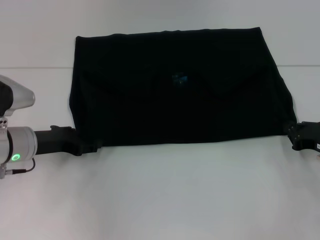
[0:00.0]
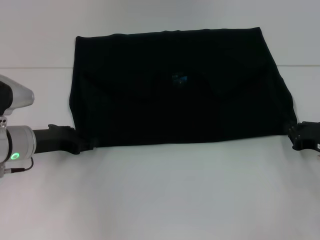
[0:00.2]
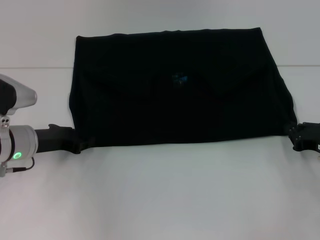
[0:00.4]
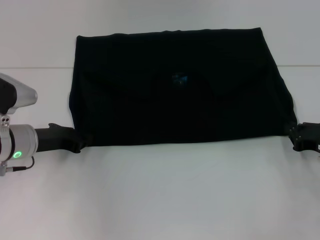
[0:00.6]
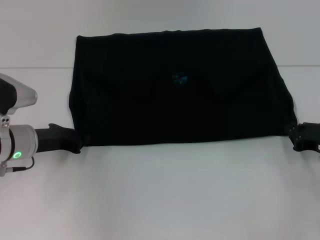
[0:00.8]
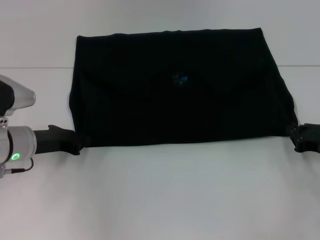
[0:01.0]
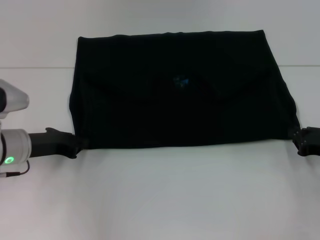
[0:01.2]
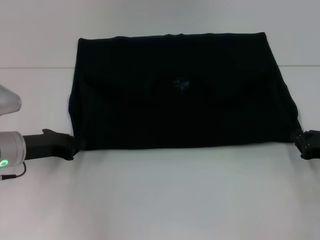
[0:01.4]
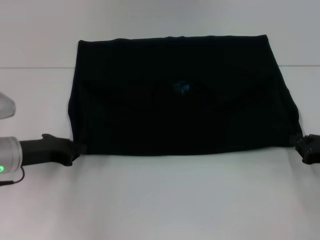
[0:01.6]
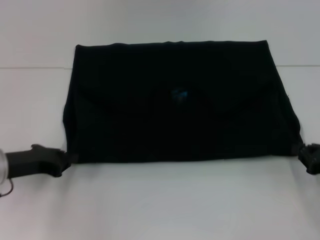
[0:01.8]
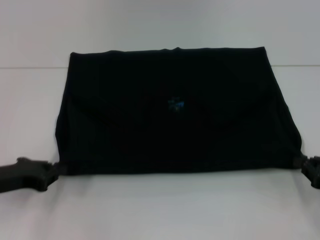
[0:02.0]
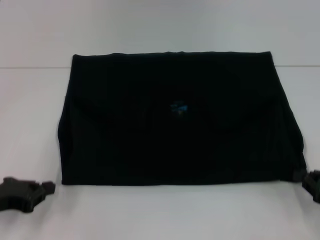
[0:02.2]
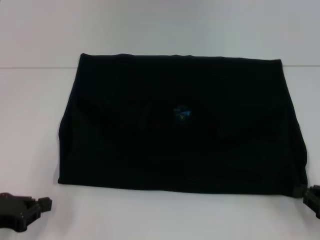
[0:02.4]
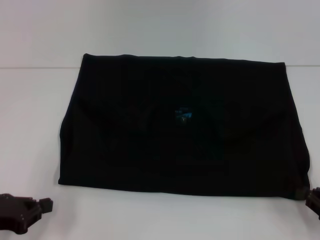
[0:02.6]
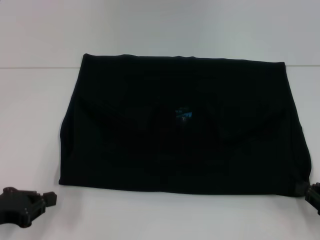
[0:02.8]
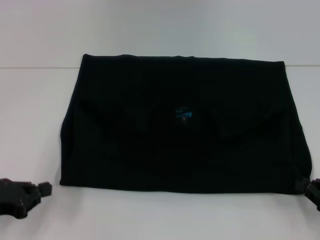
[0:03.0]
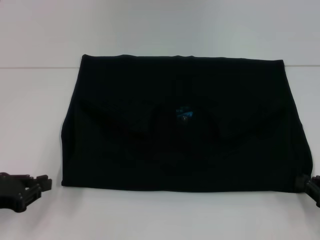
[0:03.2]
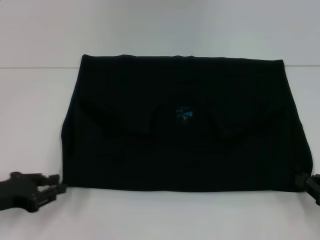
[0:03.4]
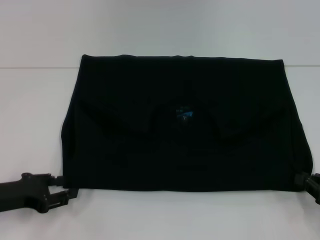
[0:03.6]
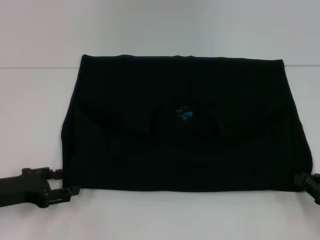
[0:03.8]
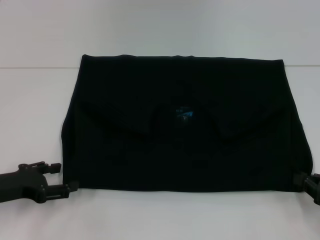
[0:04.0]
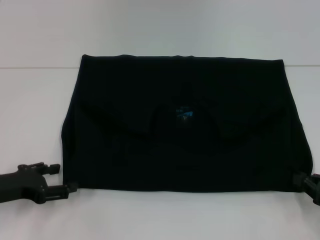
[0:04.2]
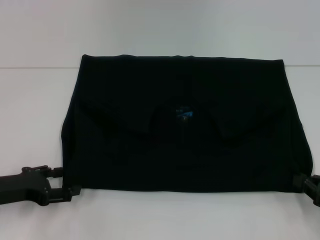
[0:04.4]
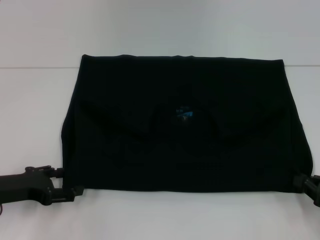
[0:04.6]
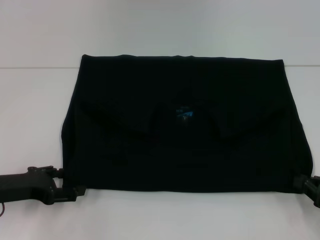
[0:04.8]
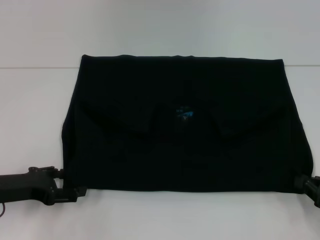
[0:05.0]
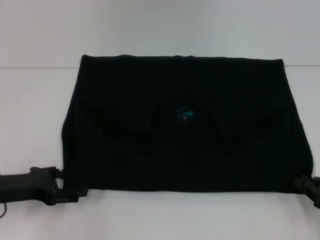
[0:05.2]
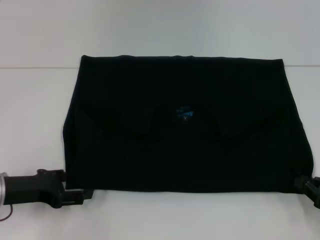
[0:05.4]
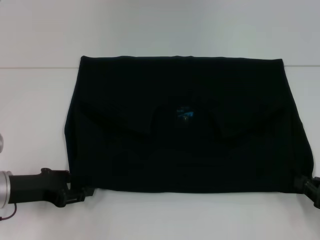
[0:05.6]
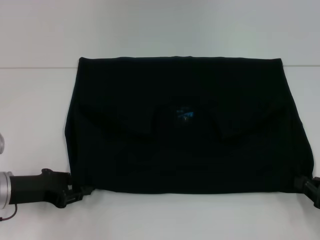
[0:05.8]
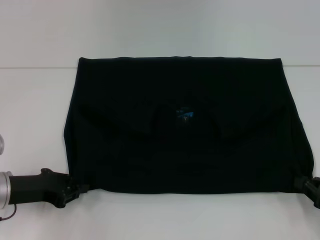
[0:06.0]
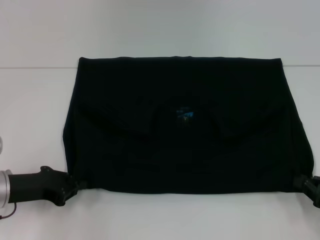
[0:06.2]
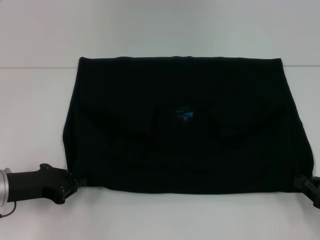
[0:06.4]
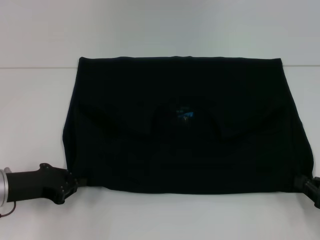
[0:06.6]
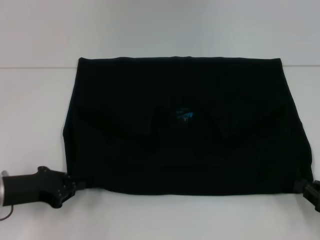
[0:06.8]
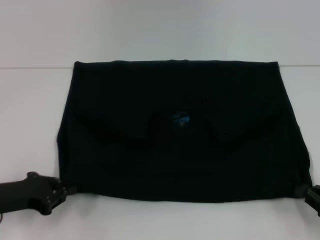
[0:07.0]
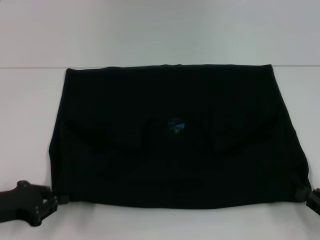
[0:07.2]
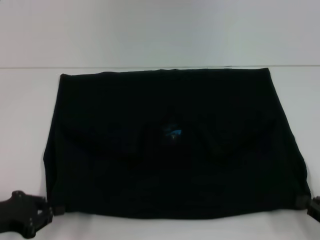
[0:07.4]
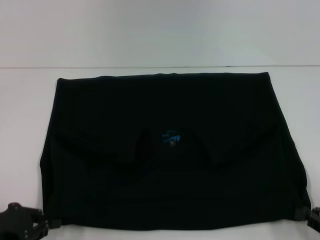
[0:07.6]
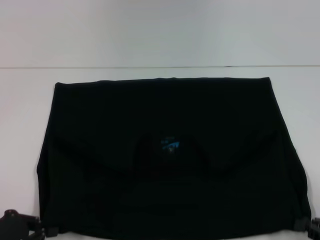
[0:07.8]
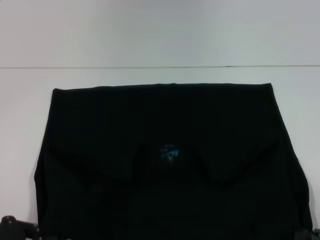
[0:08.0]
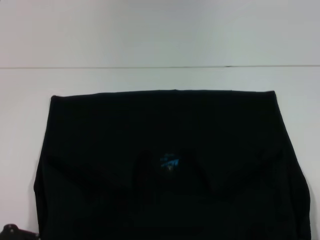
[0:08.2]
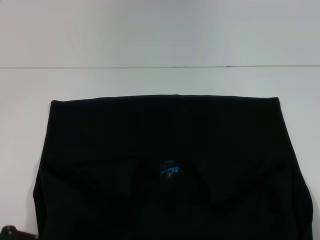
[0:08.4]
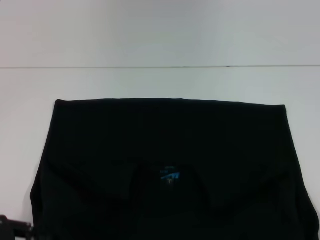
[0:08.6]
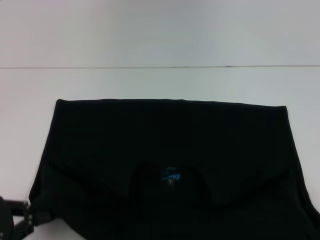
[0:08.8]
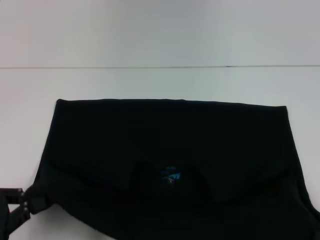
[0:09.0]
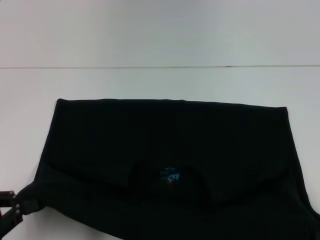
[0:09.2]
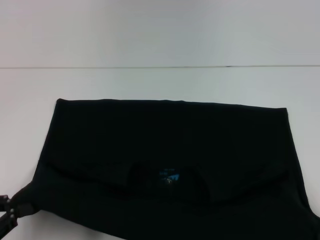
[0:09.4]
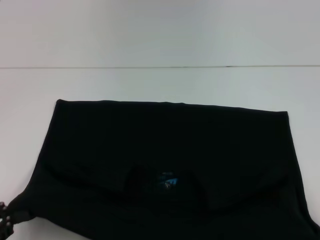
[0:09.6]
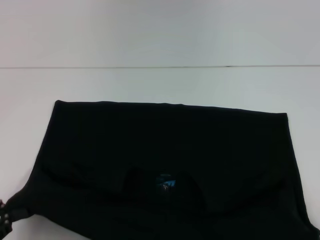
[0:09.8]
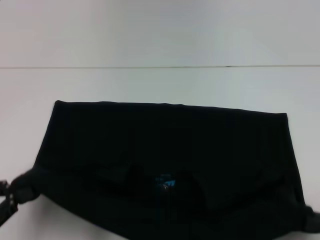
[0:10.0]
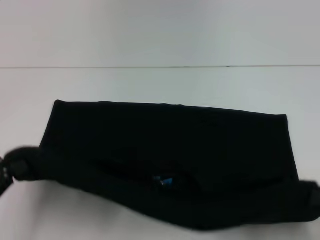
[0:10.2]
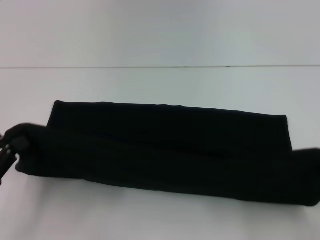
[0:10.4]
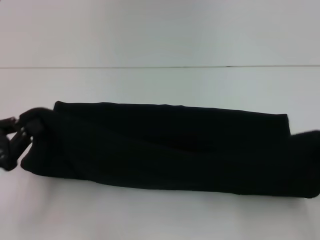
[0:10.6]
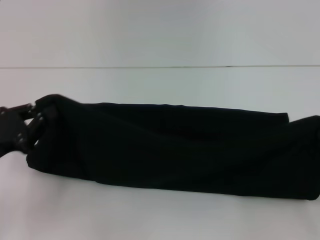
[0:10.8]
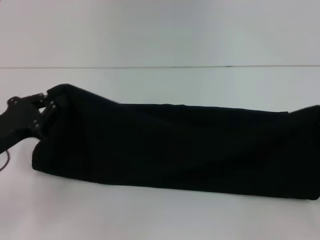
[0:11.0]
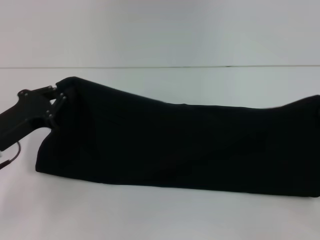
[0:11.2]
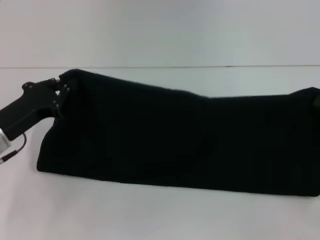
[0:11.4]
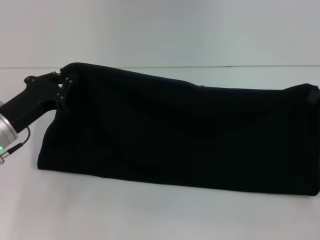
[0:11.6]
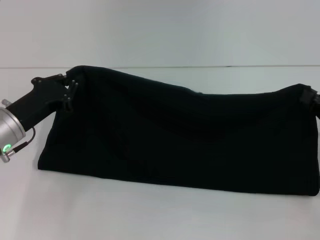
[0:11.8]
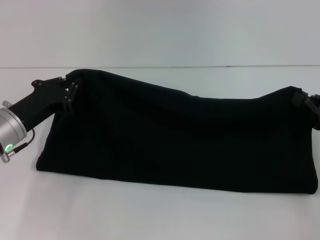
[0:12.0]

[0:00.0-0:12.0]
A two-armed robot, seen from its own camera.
Step, 0:00.0 to 0:04.4: Pull the clothes with your left hand.
Step, 0:00.0 to 0:04.4: Pull the clothes with your right hand.
0:00.0 to 0:01.6: The left gripper closes up.
0:01.6 to 0:03.0: The right gripper is displaced backward by some 5 cm, while the left gripper goes about 10 cm backward and to the left.
0:03.0 to 0:04.4: The left gripper opens its fingers.
0:04.4 to 0:06.0: The left gripper closes up.
0:06.0 to 0:07.6: The left gripper shifts approximately 5 cm backward.
0:07.6 to 0:09.0: The right gripper moves approximately 5 cm.
0:09.0 to 0:10.4: The right gripper ends up roughly 5 cm from where it was.
0:10.4 to 0:12.0: The right gripper goes about 10 cm forward. The left gripper moves forward and to the right, roughly 15 cm.

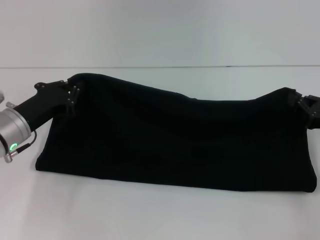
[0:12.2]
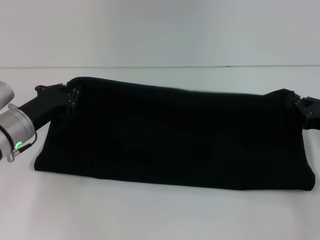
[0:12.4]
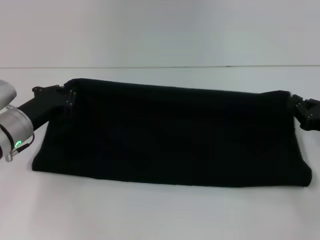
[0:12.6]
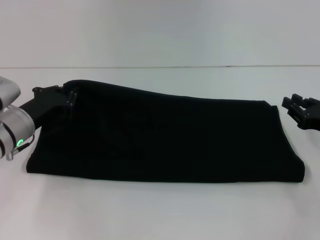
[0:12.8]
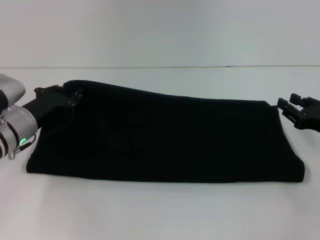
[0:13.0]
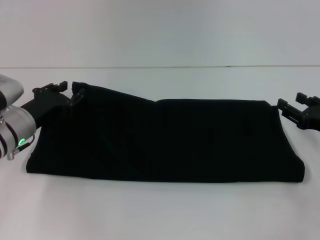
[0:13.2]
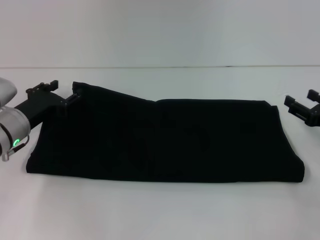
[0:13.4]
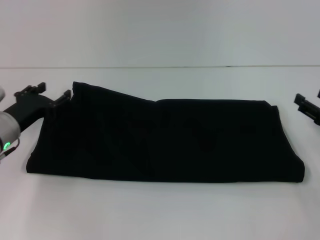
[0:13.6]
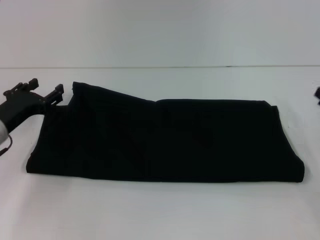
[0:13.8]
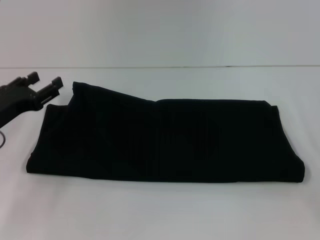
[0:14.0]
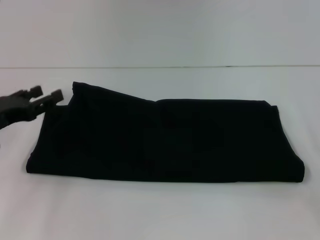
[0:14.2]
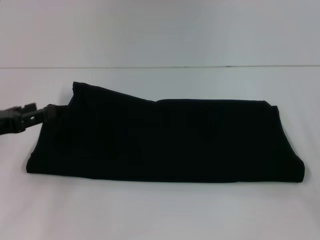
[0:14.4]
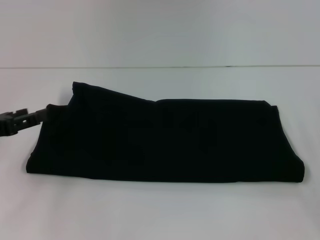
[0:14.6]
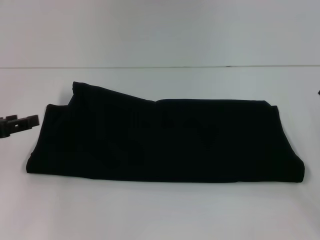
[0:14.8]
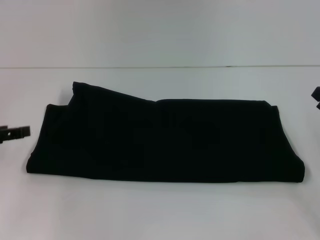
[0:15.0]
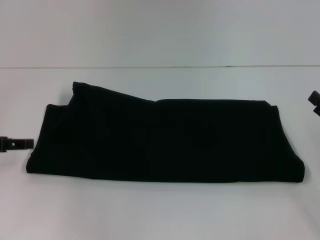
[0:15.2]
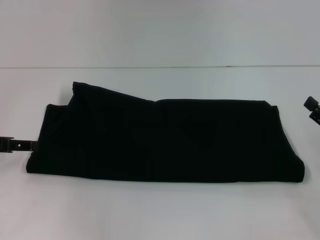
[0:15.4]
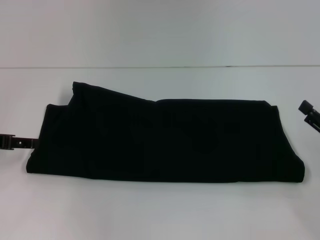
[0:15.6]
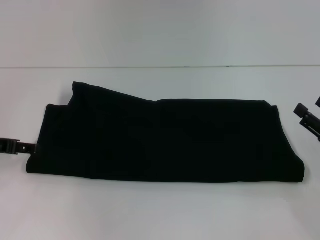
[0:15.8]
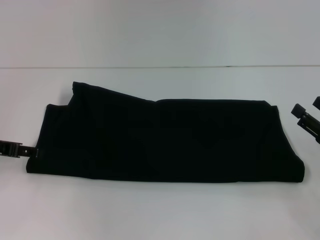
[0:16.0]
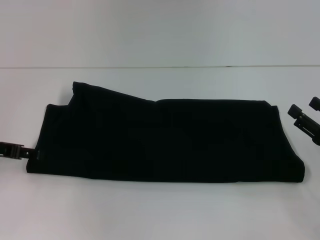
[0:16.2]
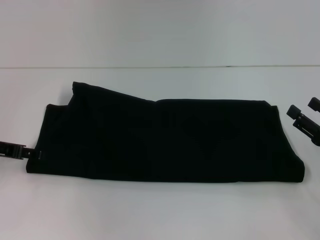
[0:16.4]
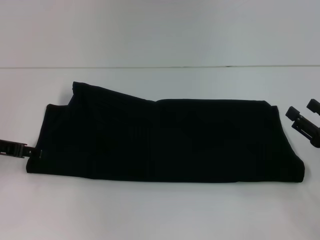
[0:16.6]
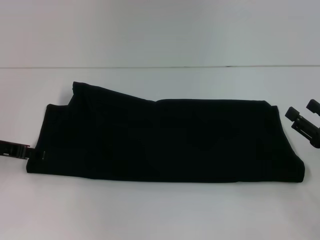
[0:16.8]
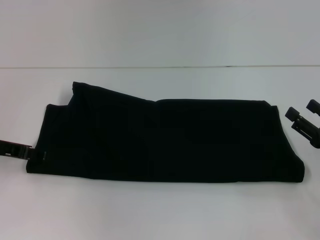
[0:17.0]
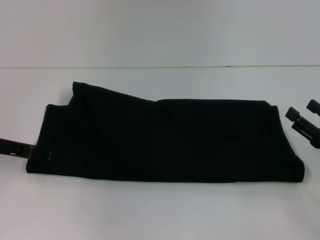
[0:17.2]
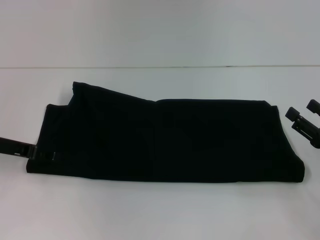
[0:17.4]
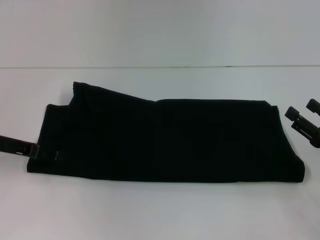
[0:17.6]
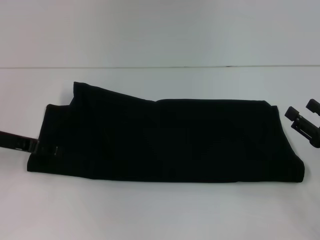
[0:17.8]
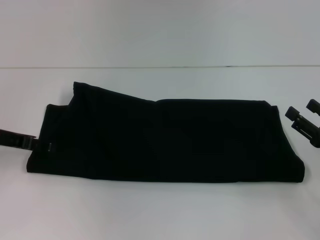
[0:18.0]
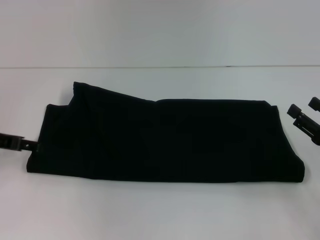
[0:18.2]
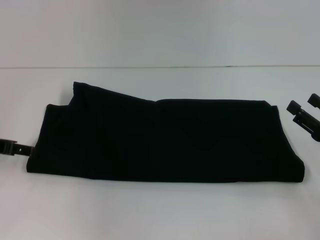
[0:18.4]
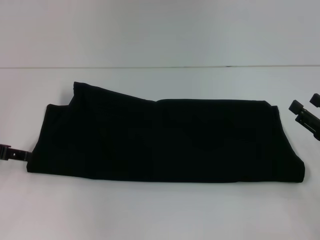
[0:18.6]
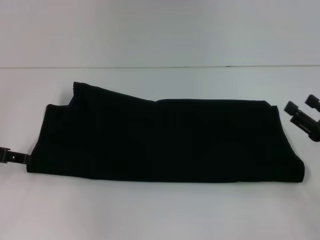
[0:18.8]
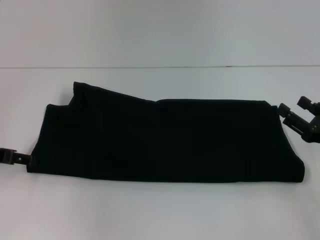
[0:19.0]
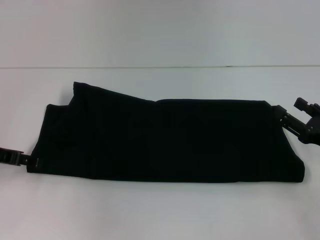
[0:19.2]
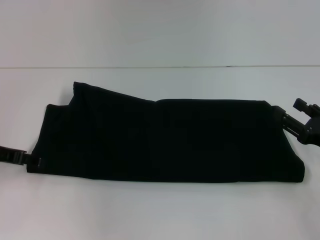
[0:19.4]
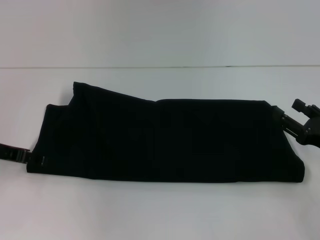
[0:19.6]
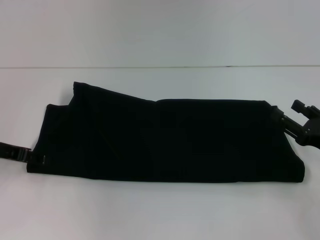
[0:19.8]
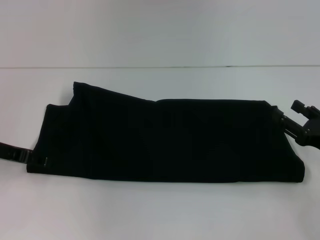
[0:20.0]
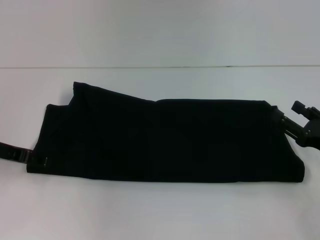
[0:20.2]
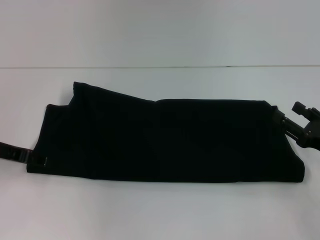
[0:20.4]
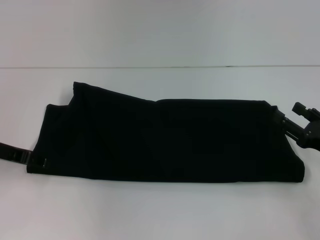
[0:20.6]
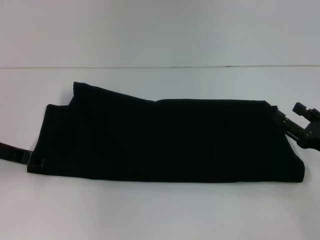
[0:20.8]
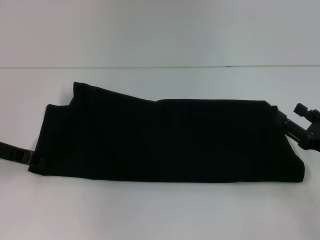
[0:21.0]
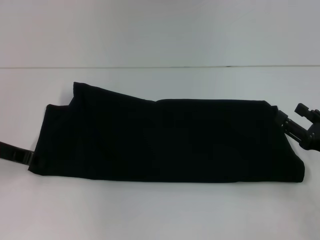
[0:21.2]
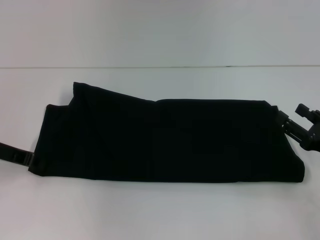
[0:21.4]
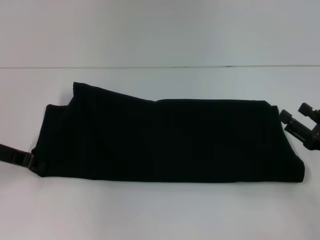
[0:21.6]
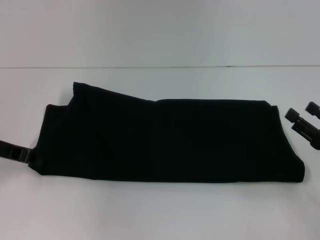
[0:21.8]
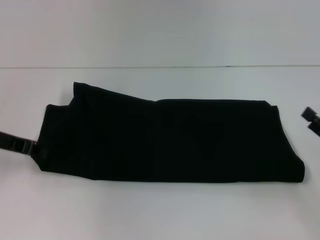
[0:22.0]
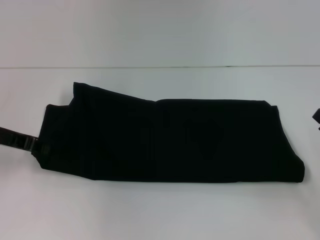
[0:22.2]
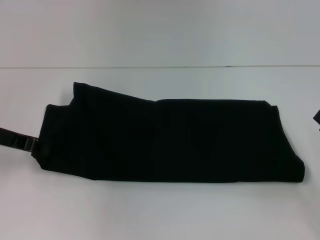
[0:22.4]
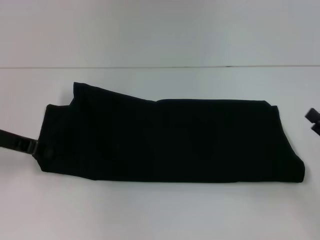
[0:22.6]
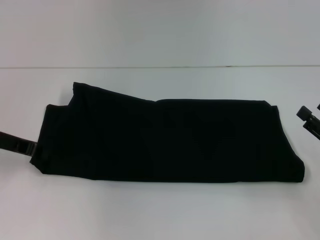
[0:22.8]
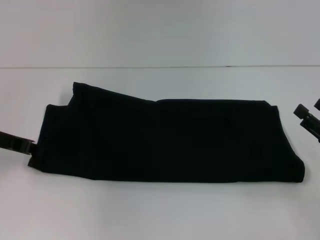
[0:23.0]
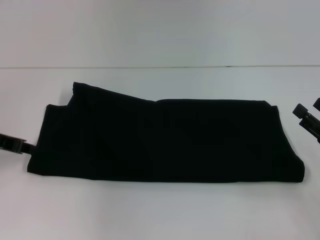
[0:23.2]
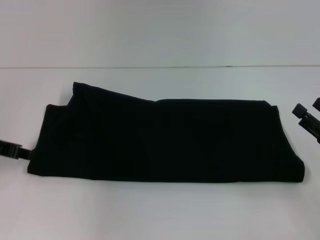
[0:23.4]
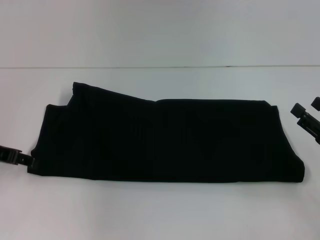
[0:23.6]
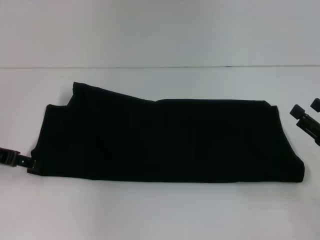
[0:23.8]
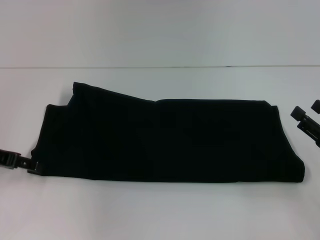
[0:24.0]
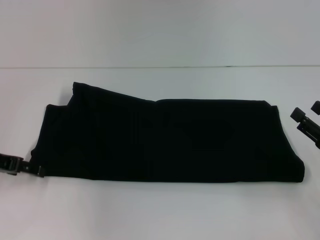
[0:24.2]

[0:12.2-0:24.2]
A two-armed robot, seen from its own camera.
0:12.2 to 0:13.8: The left gripper opens its fingers. The right gripper opens.
0:13.8 to 0:15.2: The left gripper heads upward and to the left, covering some 10 cm.
0:15.2 to 0:16.6: There are only small adjustments of the grippers.
0:16.6 to 0:19.8: The grippers make only small movements.
0:21.2 to 0:22.6: The grippers make only small movements.
0:22.6 to 0:24.2: The left gripper opens its fingers.
